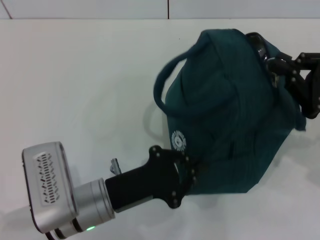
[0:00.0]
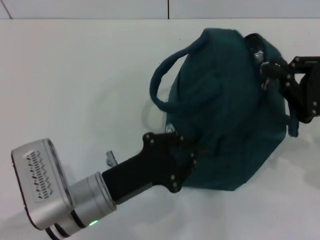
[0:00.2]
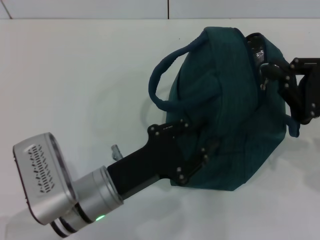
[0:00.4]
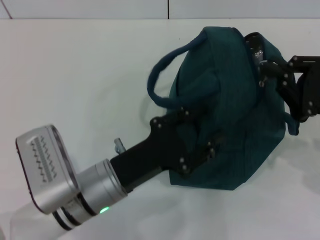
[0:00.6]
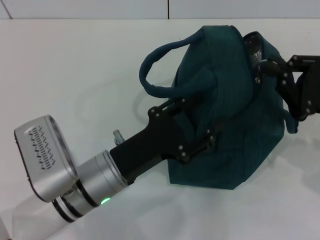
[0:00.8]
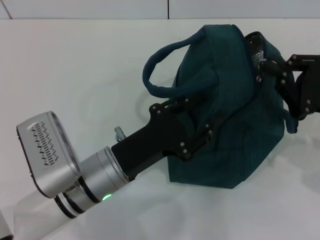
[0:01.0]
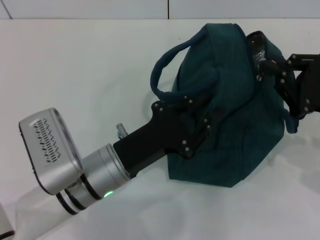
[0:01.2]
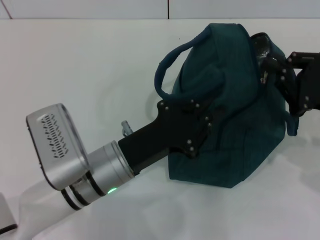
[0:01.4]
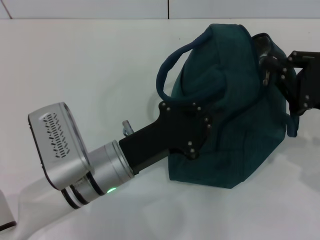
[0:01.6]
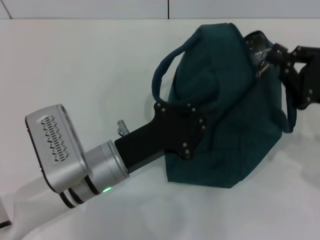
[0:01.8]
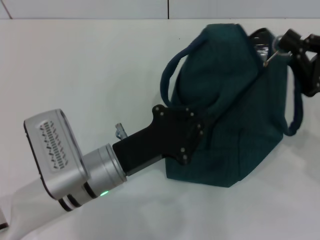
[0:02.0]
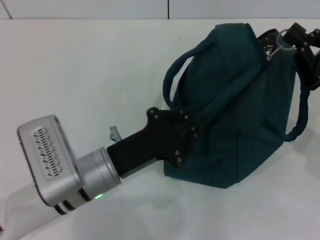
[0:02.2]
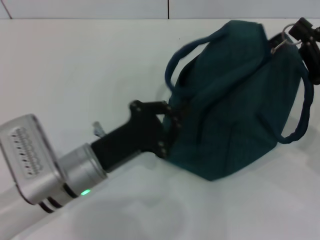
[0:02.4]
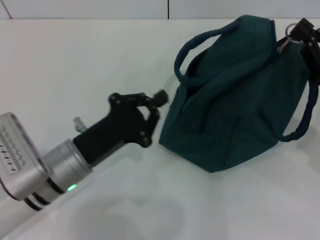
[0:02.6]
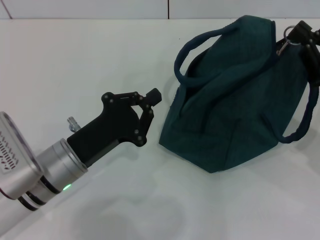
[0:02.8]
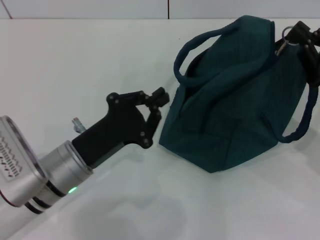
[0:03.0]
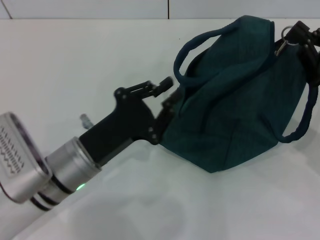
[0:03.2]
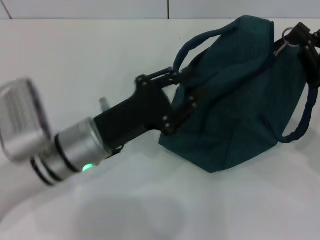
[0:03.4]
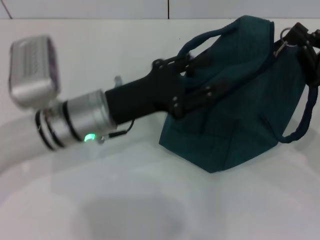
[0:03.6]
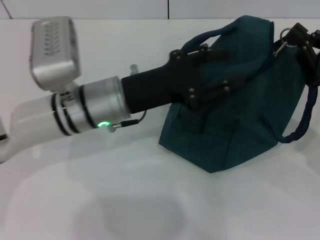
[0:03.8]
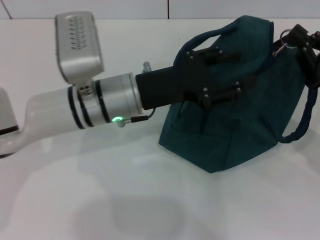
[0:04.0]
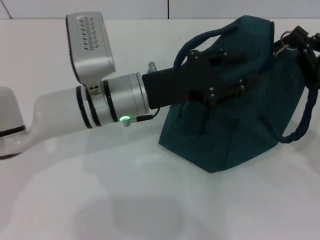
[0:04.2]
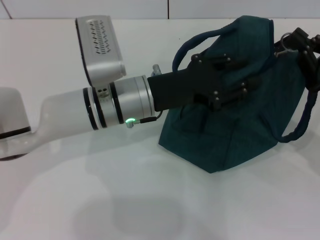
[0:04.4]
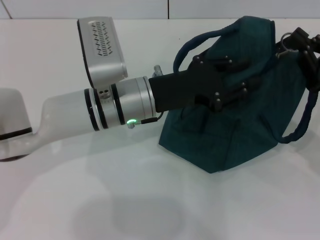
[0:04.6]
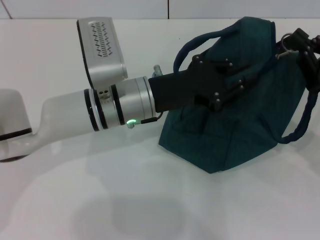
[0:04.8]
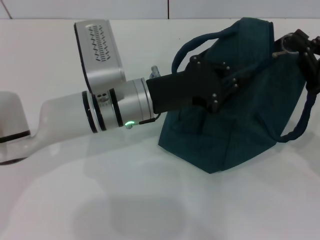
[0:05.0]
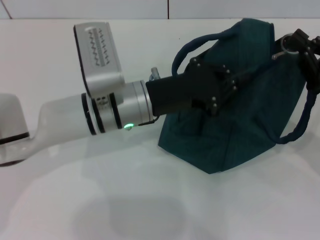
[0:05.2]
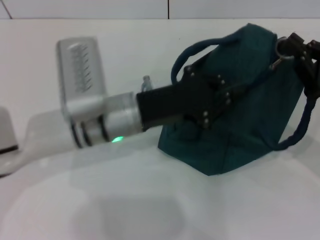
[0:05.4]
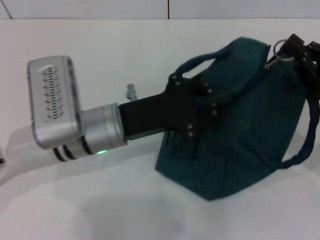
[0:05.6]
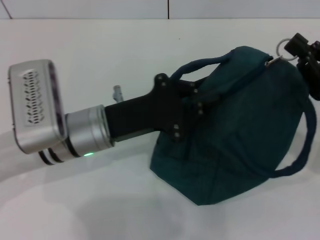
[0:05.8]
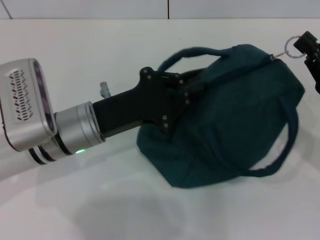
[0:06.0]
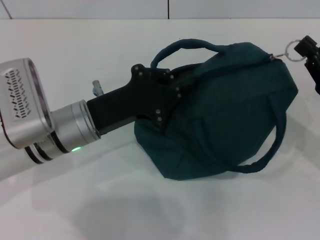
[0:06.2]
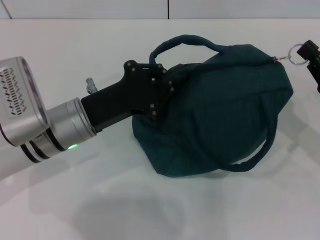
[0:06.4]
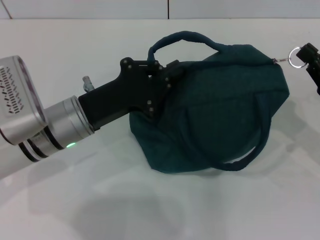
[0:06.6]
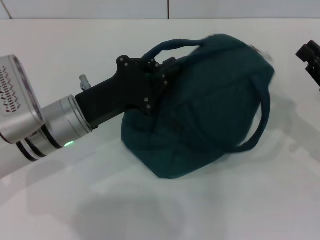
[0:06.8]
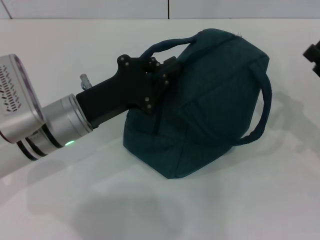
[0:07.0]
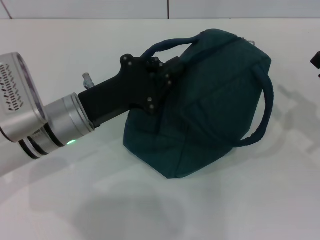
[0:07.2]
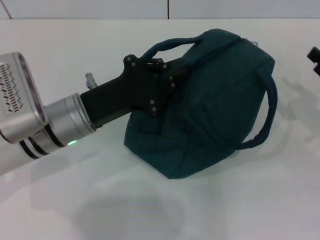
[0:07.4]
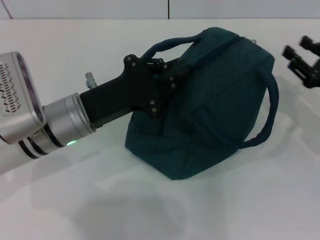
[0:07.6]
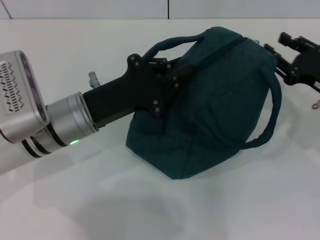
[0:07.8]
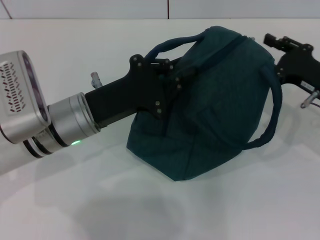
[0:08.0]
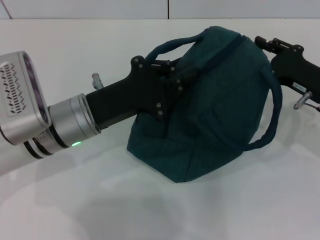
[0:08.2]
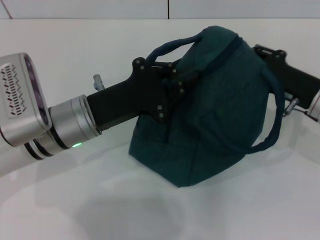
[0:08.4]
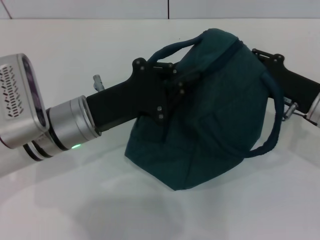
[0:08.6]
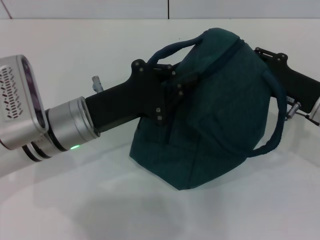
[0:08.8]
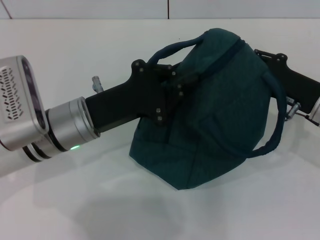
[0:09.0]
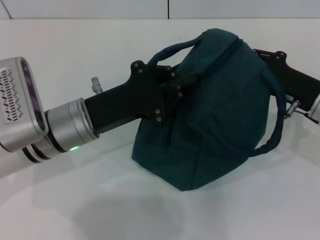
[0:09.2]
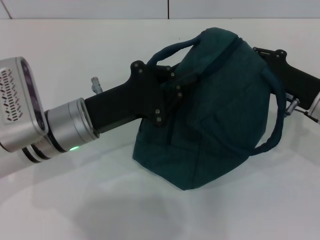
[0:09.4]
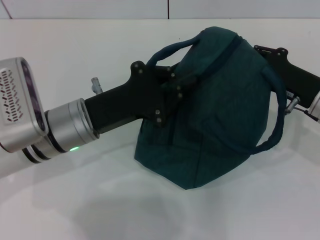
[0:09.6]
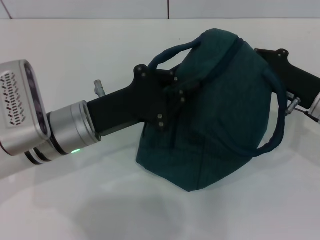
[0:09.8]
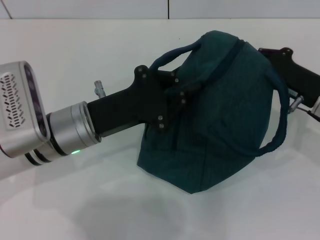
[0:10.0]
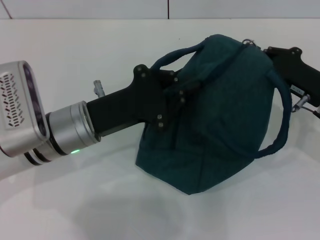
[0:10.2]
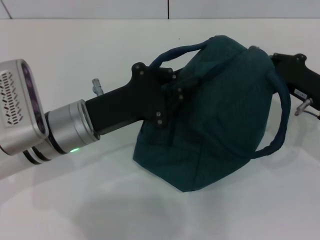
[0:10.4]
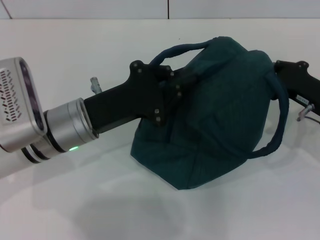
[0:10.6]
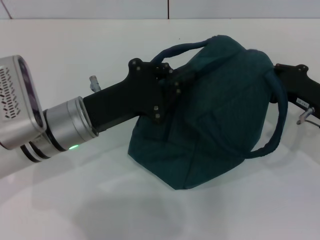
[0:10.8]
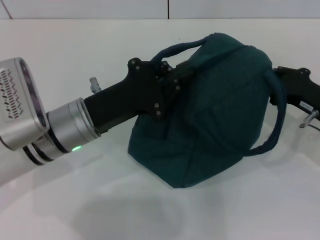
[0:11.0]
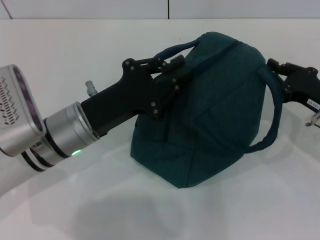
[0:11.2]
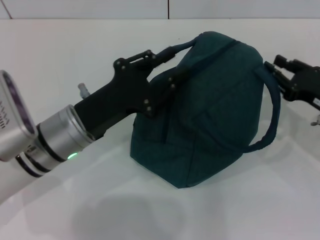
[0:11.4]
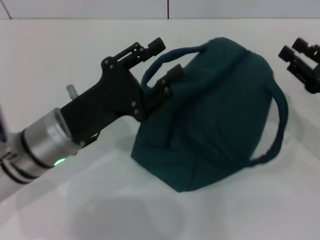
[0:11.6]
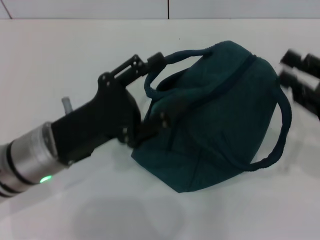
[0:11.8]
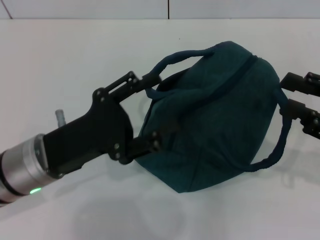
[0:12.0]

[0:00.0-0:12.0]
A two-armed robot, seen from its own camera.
Step, 0:00.0 to 0:11.0: Zip up the lunch bag with your right hand.
Step, 0:11.2 to 0:11.4: Hold the lunch bag with your left hand.
0:00.0 to 0:01.6: The left gripper ends up approximately 5 cm from where it was, and opens, then closes once more.
0:01.6 to 0:03.0: The left gripper shifts approximately 5 cm to the left.
0:03.0 to 0:04.4: The left gripper is displaced forward, to the right and upward by approximately 15 cm, and opens up.
0:04.4 to 0:06.0: The left gripper is displaced to the left by about 5 cm, and closes its fingers.
0:06.0 to 0:07.6: The right gripper opens its fingers.
0:07.6 to 0:09.0: The right gripper shifts roughly 5 cm to the left.
0:09.0 to 0:10.4: The right gripper closes up.
0:10.4 to 0:12.0: The left gripper travels backward by approximately 5 cm, and opens up, while the right gripper is displaced backward and upward by approximately 10 cm, and opens.

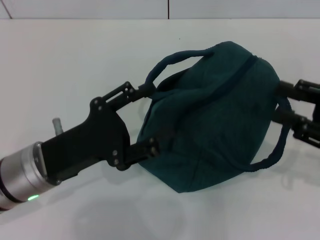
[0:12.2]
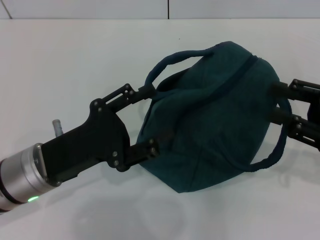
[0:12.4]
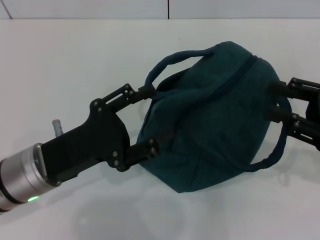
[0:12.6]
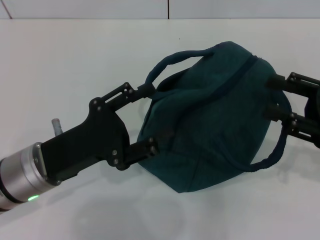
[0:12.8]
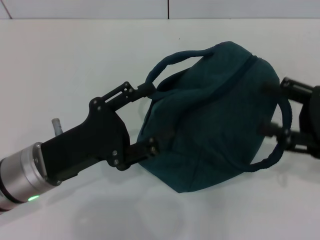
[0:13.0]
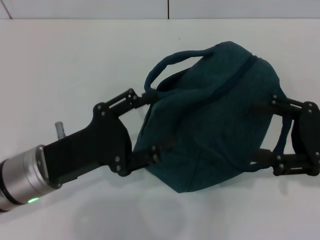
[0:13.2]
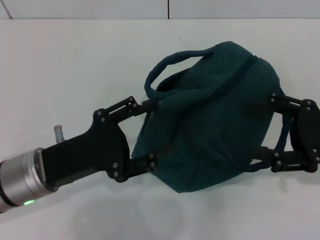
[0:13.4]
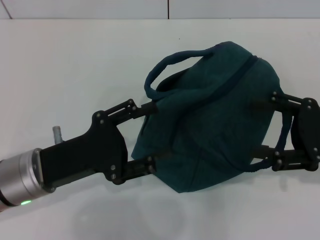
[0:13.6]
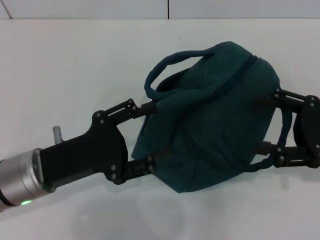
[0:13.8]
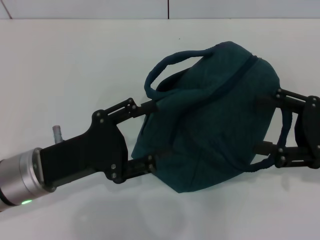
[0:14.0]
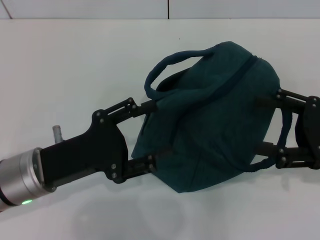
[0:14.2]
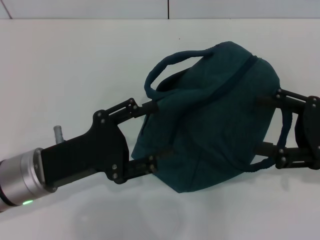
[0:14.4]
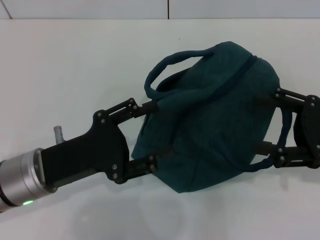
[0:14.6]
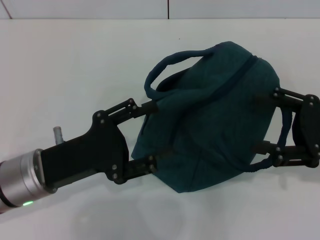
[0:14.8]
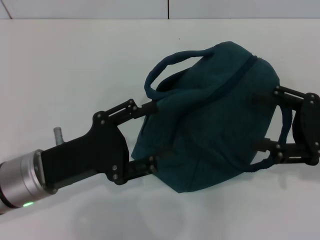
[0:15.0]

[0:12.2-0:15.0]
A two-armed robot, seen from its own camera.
0:12.2 to 0:13.6: The right gripper opens.
0:13.6 to 0:15.0: Both grippers stay put.

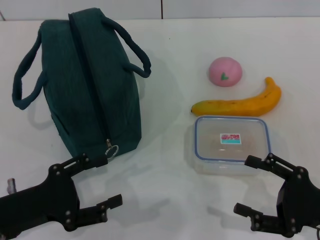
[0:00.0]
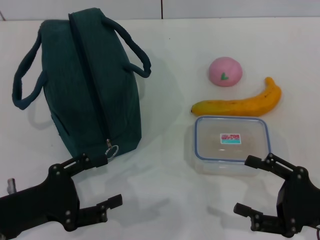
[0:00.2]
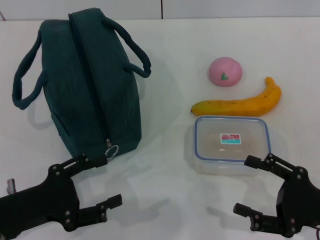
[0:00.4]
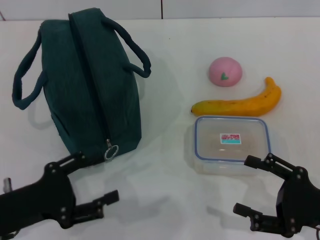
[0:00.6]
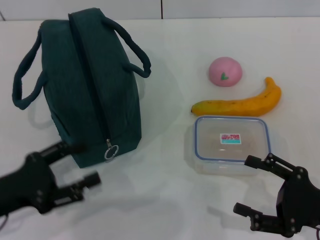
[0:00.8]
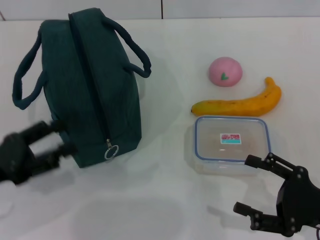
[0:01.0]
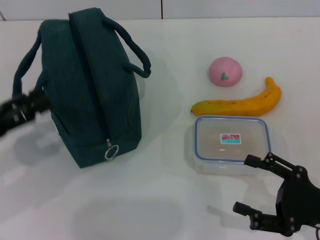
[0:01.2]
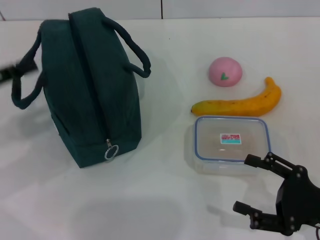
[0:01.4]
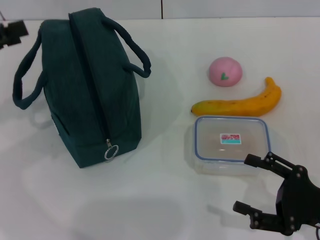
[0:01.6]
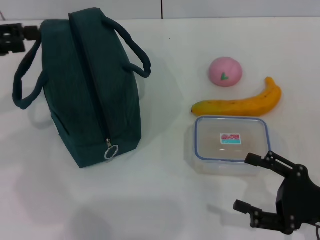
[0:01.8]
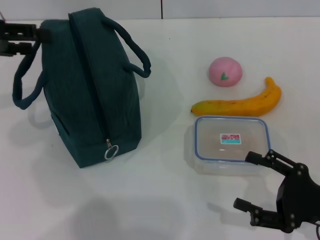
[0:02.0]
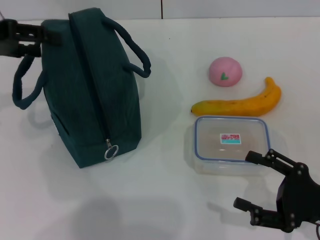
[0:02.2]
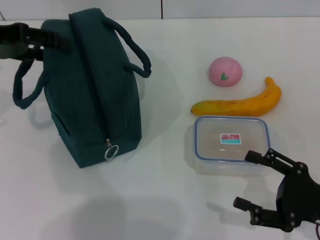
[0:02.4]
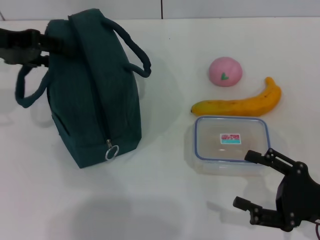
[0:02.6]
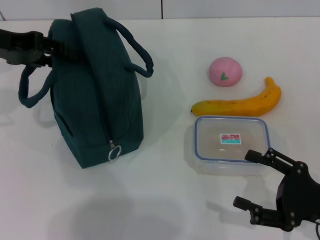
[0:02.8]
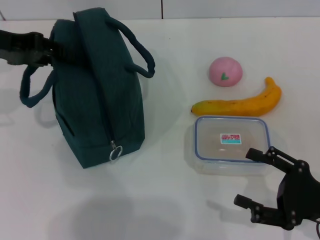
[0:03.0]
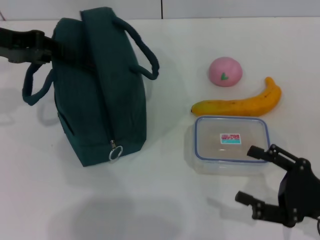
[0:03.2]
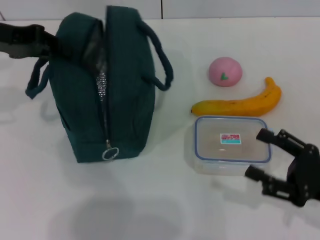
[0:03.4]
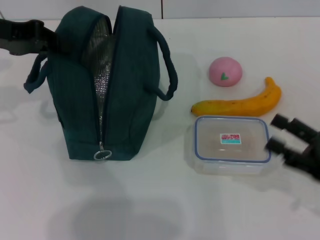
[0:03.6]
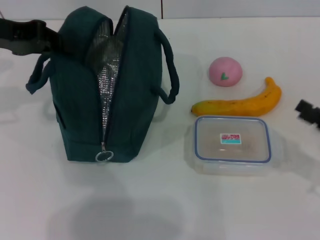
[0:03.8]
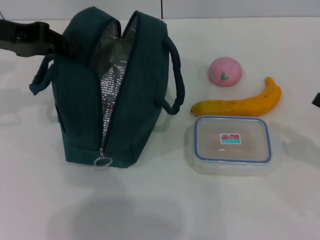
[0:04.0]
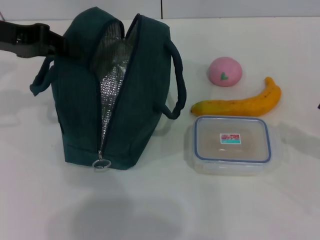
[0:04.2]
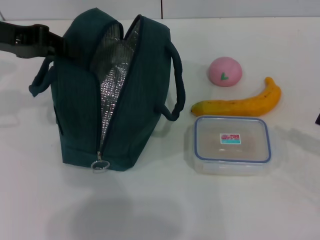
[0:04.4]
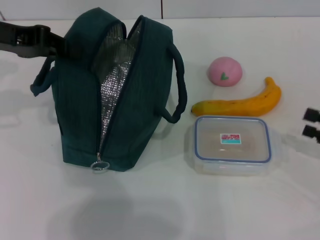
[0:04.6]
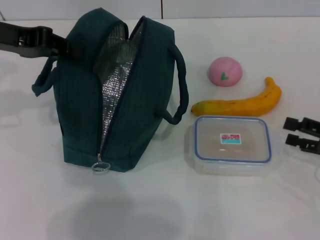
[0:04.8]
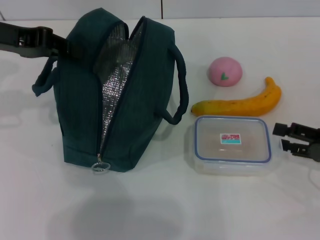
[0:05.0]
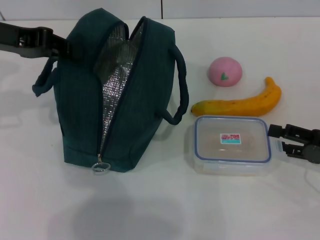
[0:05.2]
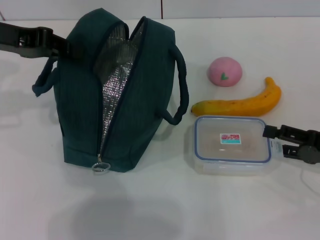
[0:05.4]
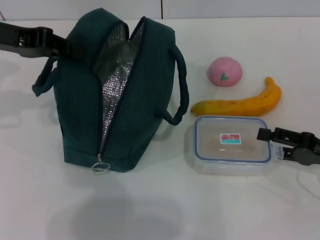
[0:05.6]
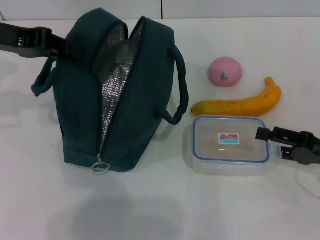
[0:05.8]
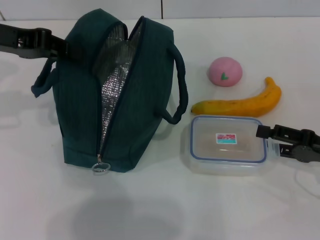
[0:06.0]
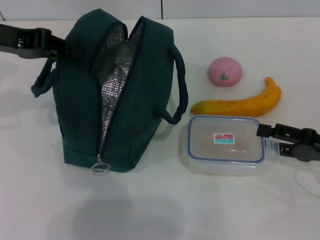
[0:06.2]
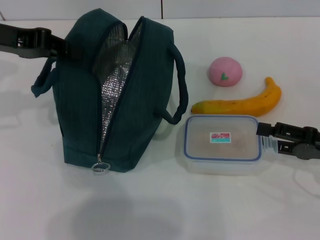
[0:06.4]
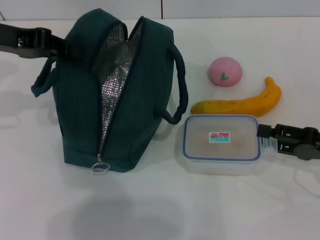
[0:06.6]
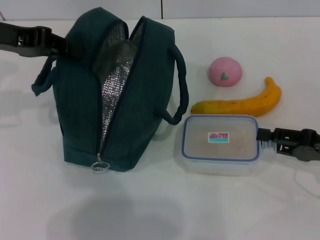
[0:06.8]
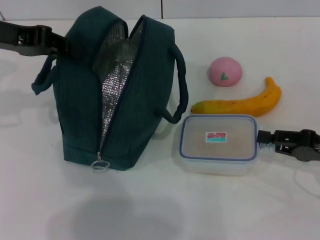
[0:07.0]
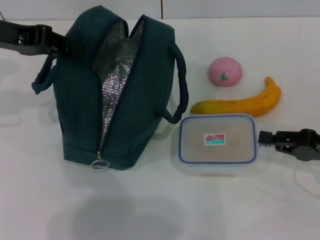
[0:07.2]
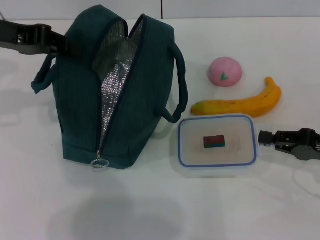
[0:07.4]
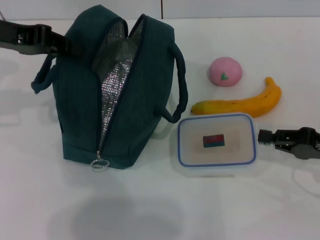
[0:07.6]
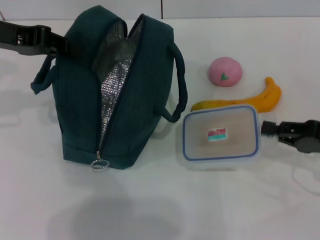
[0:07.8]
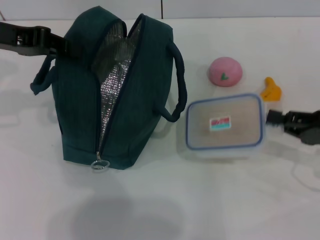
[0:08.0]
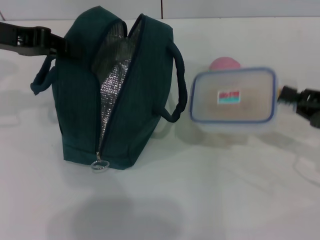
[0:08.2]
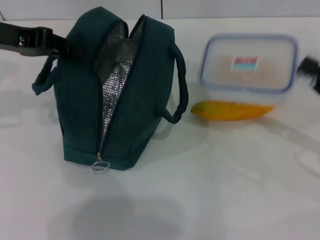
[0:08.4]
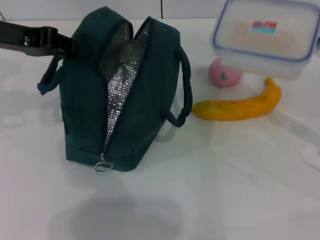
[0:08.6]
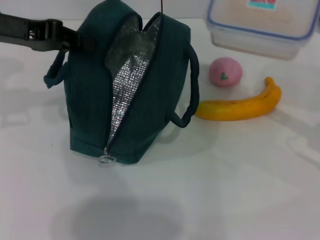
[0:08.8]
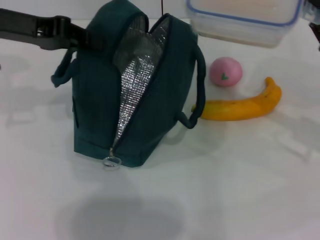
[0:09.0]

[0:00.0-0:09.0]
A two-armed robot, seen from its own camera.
Step, 0:00.0 to 0:04.8: Hold the lunch bag with your left hand.
Step, 0:05.0 to 0:07.2: Pick up the lunch box with your right hand.
0:00.0 to 0:01.6: The left gripper is displaced upward, forward and to the left by approximately 20 cm.
0:01.6 to 0:03.0: The left gripper shifts some 10 cm forward and to the right.
0:03.0 to 0:04.4: The left gripper closes up. Meanwhile the right gripper is displaced to the right and forward by some 10 cm.
0:04.4 to 0:06.0: The right gripper moves to the left, about 5 cm.
0:06.0 to 0:07.6: The right gripper closes its fingers.
0:07.6 to 0:09.0: The right gripper shifts approximately 10 cm upward.
